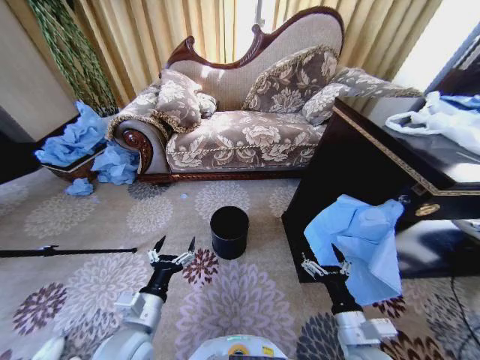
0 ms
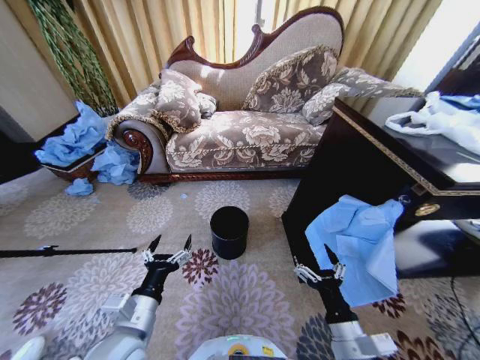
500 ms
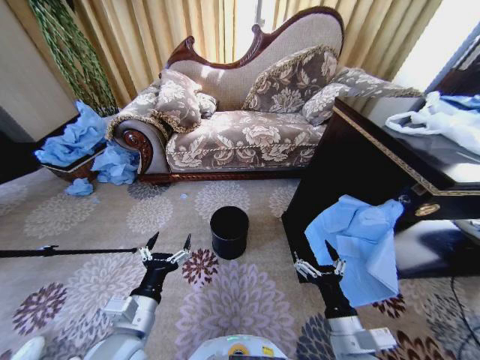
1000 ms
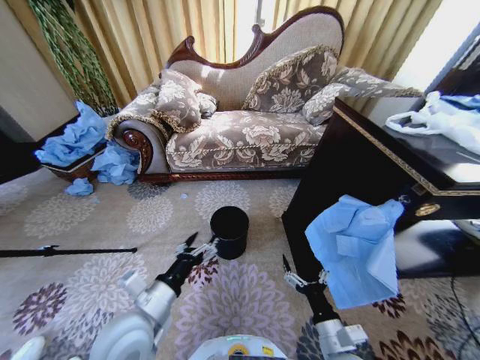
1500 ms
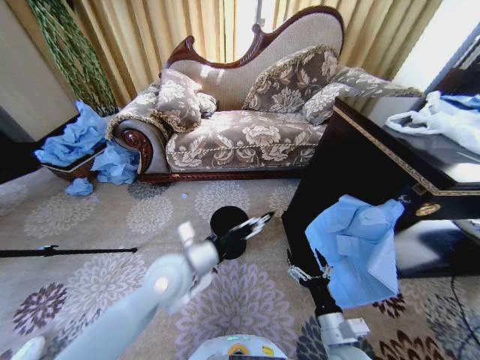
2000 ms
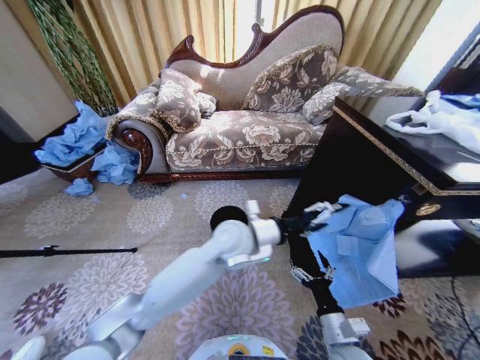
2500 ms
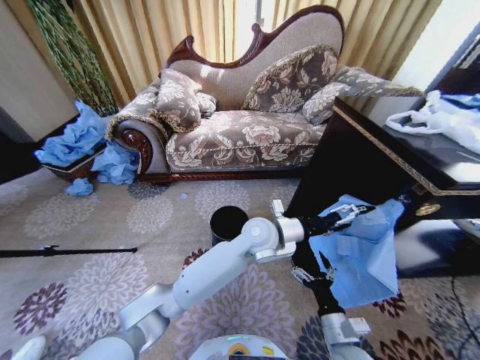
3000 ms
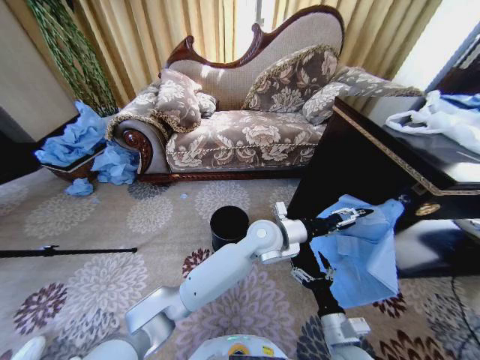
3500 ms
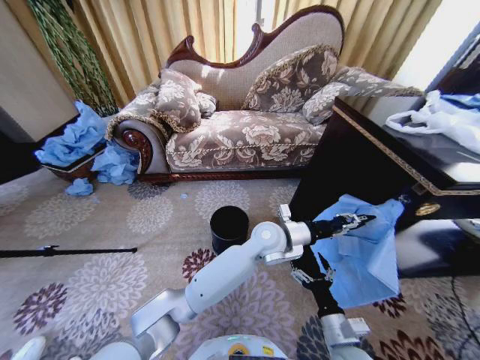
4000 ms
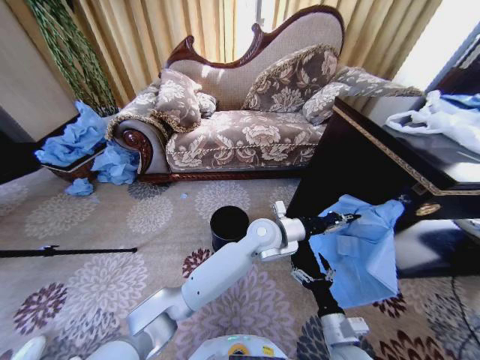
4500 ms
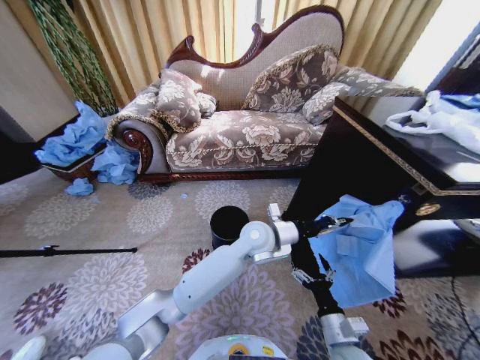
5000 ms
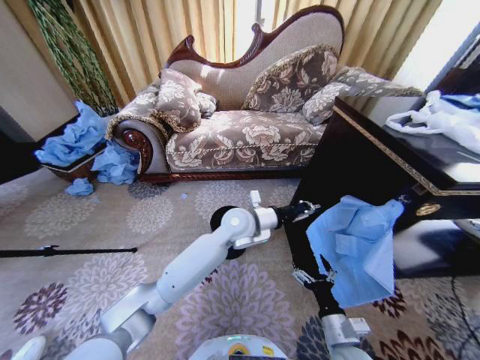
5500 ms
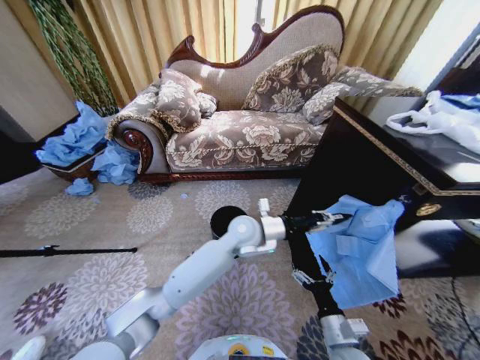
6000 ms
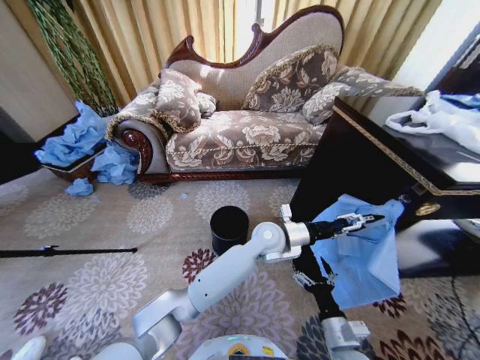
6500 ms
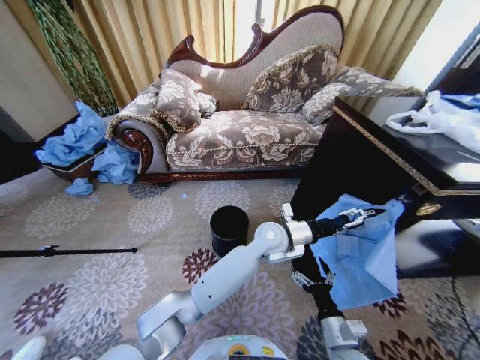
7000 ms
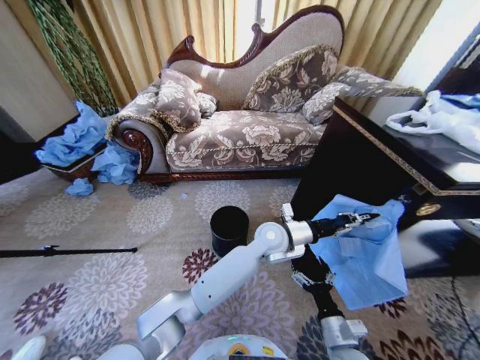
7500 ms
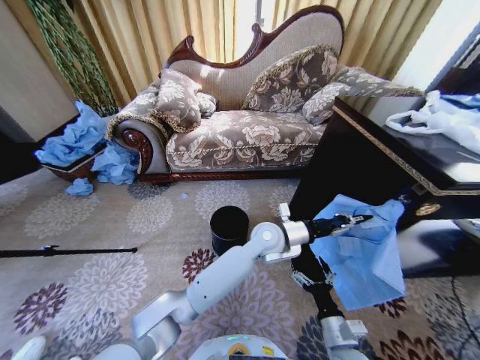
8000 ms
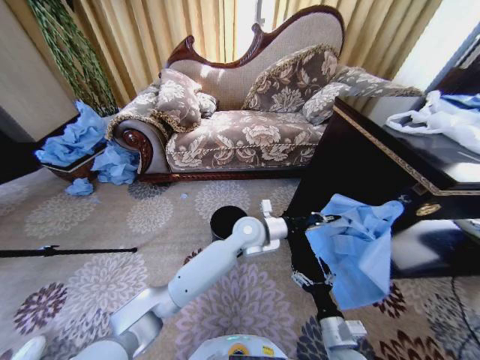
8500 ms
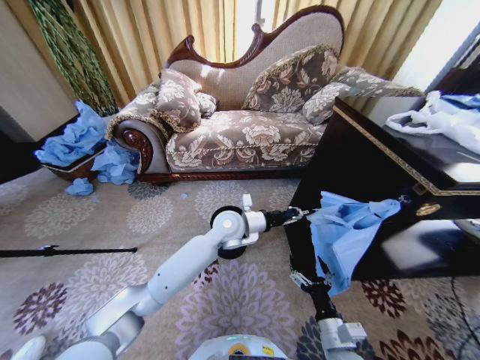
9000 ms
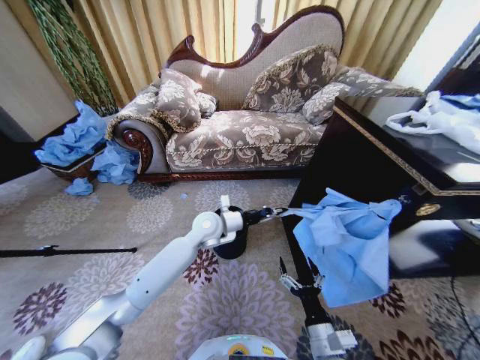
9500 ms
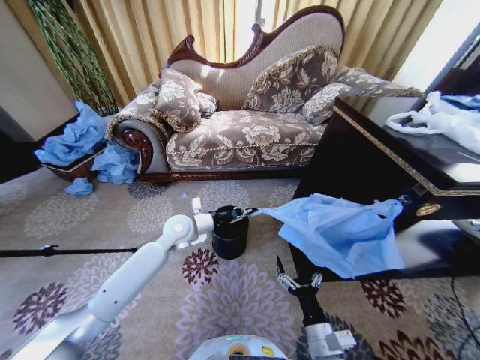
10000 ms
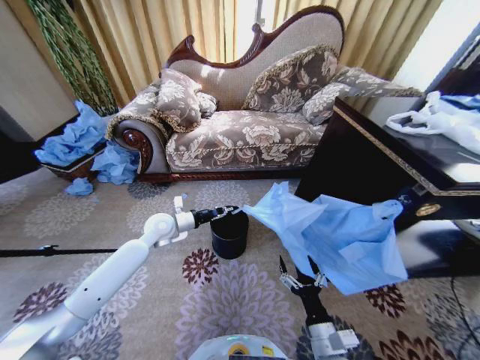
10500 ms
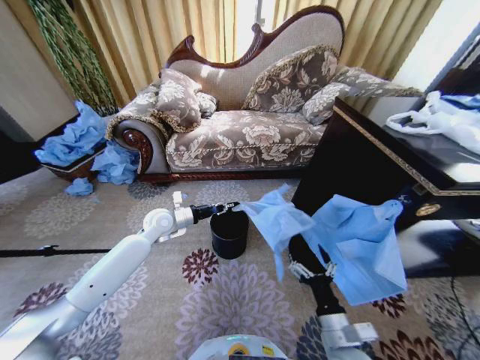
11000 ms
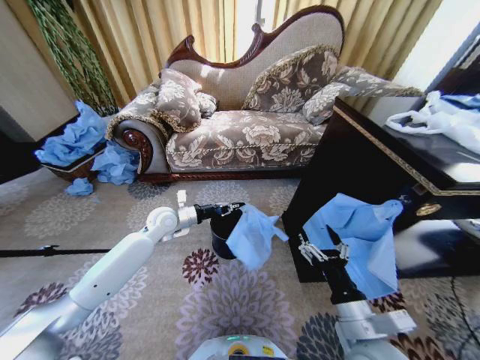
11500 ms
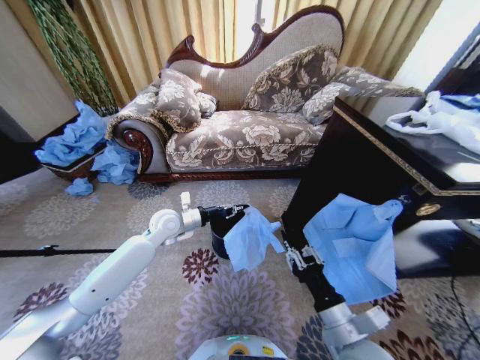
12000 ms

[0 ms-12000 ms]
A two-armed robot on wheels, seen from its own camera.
Task of the whole recording: Place a garbage bag over the trash bin.
2000 ms to 4000 ms: The left gripper shifts roughly 25 cm to the right and forward, and closes its fingers.
4000 ms to 6000 ms: The left gripper is displaced to the left by approximately 5 cm.
6000 ms to 8000 ms: The left gripper heads to the right, covering some 5 cm, and opens, then closes once more.
8000 ms to 10000 ms: The left gripper shifts about 25 cm to the left.
10000 ms to 12000 ms: The right gripper travels upward by approximately 10 cm, and closes up.

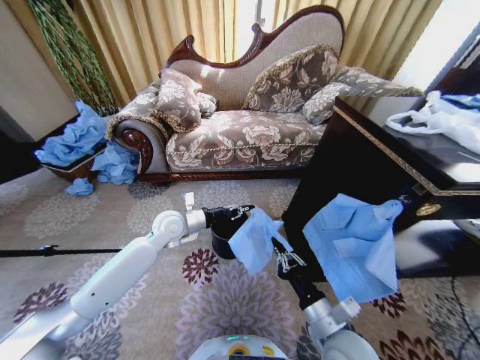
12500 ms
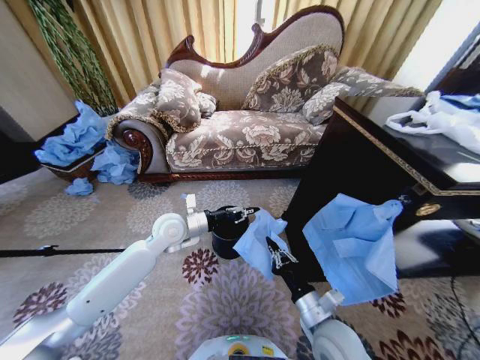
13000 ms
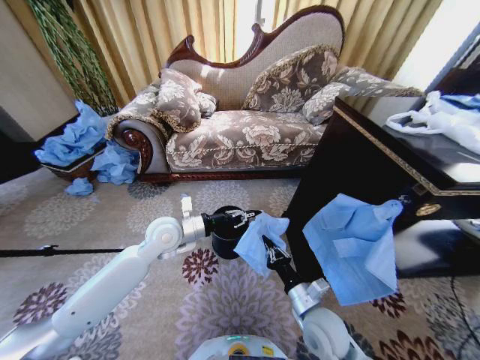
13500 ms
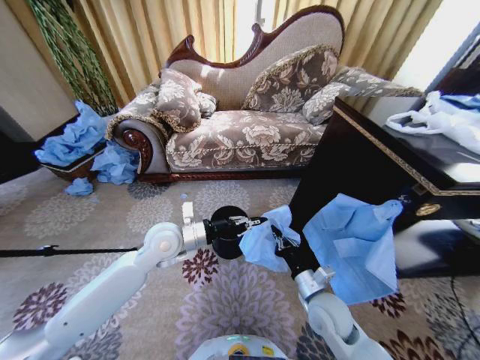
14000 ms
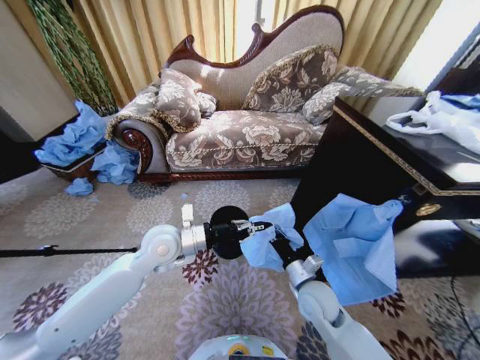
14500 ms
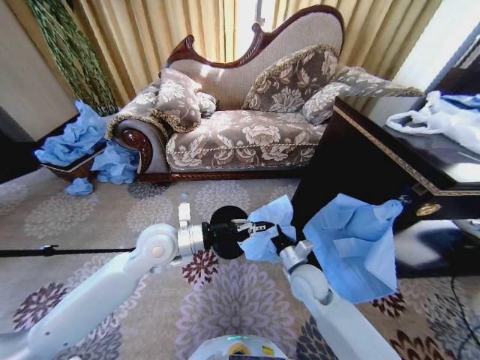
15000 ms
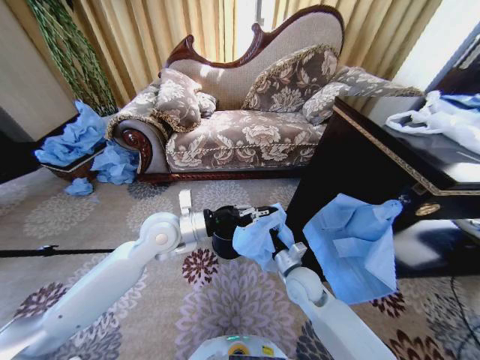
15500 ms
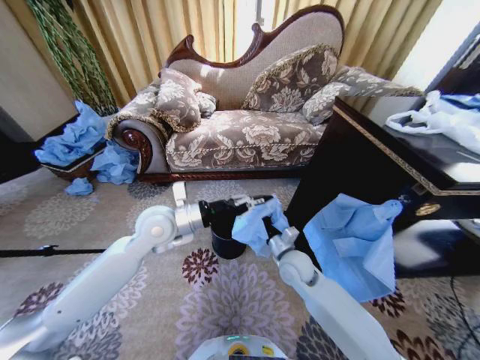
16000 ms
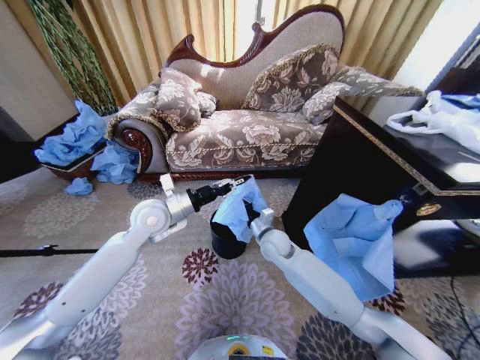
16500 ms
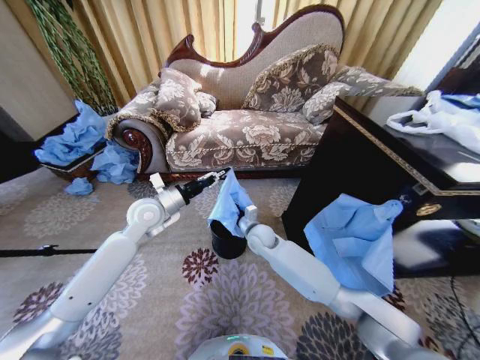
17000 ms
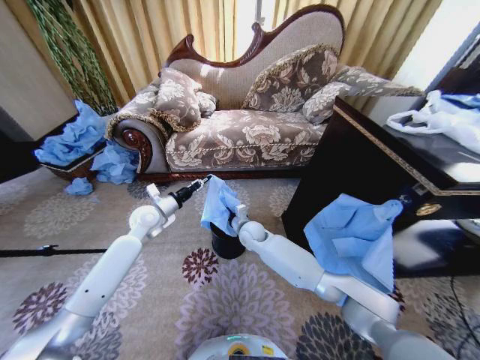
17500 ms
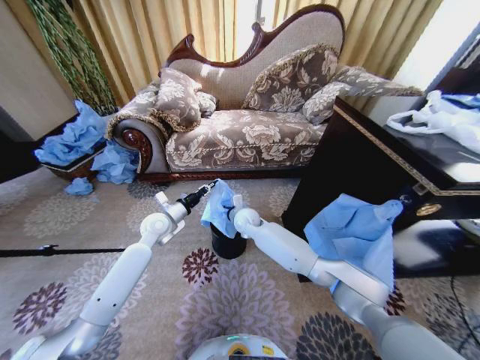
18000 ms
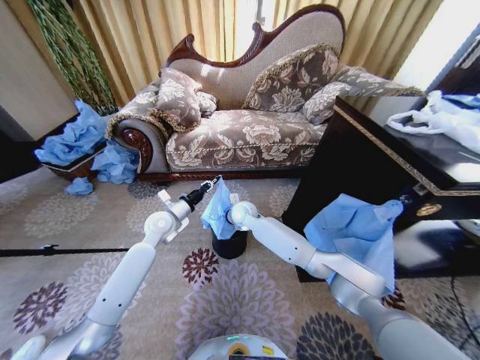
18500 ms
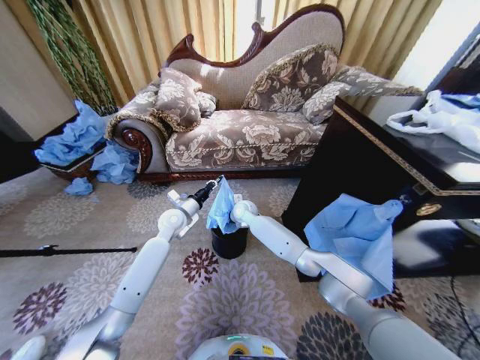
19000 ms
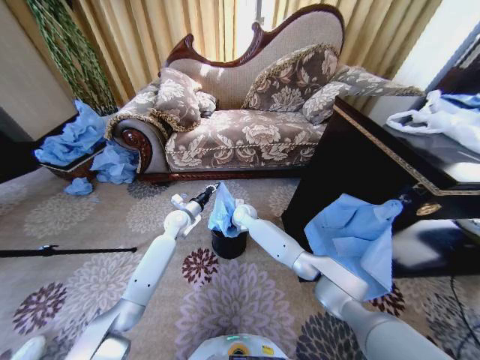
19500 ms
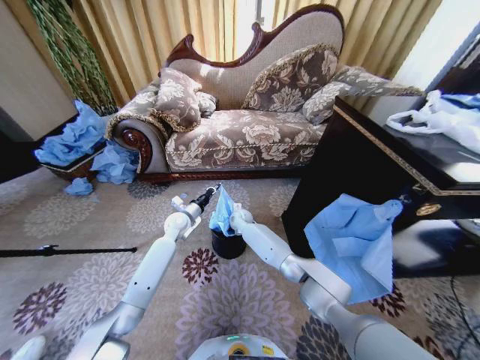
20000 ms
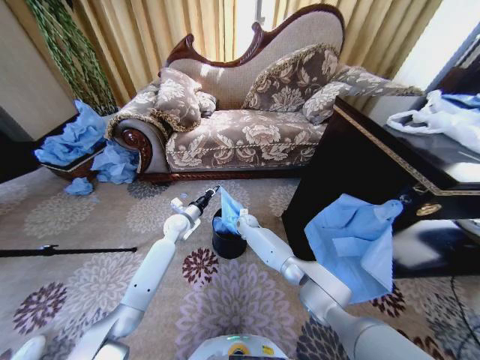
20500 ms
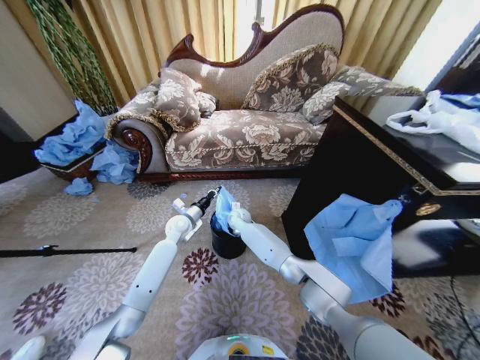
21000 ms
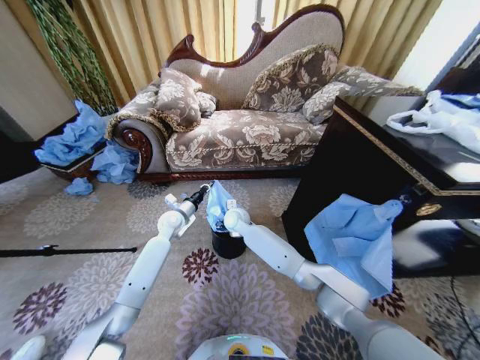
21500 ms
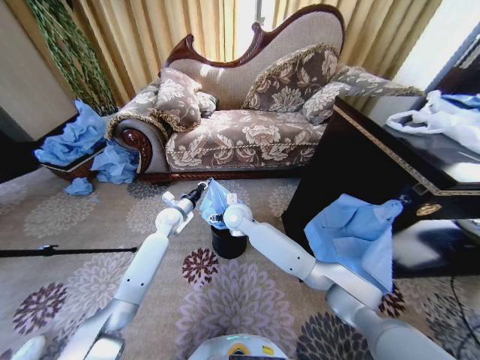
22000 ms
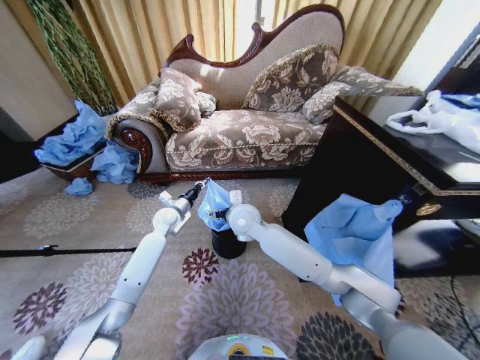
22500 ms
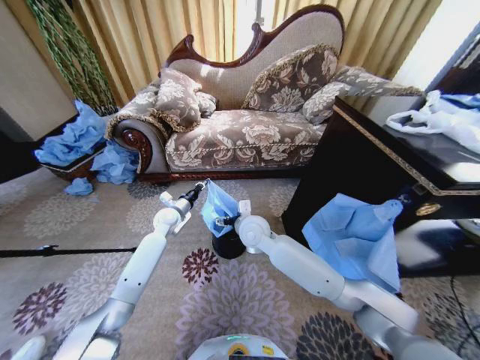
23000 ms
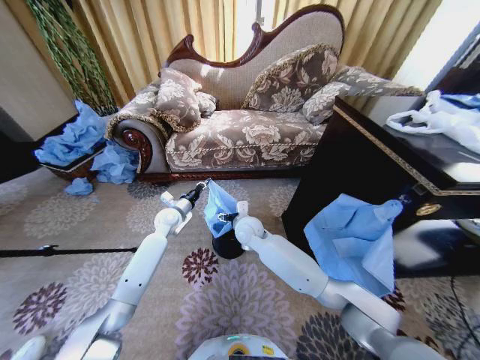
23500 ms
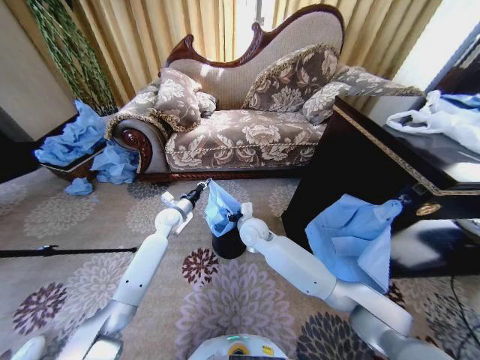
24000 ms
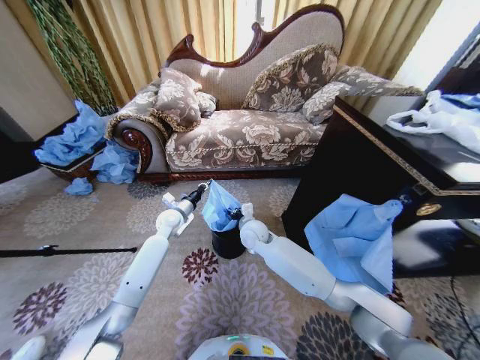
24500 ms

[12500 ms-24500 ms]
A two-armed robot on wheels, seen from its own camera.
Task of the whole recording: Place a garbage bag over the trash bin.
12500 ms to 14500 ms: The left gripper is displaced backward by roughly 10 cm. Meanwhile the right gripper heads forward, covering about 10 cm.
14500 ms to 16500 ms: The left gripper is displaced forward by about 5 cm. Meanwhile the right gripper shifts roughly 15 cm forward and to the left.
16500 ms to 18500 ms: The right gripper travels forward and to the left by about 15 cm. Meanwhile the left gripper heads downward and forward, covering some 10 cm.
18500 ms to 20500 ms: The right gripper travels downward and forward by approximately 15 cm. Meanwhile the left gripper heads downward, covering some 5 cm.
20500 ms to 22500 ms: The right gripper travels upward and backward by about 25 cm, and opens.
22500 ms to 24500 ms: The right gripper is displaced downward by roughly 10 cm, and closes up.

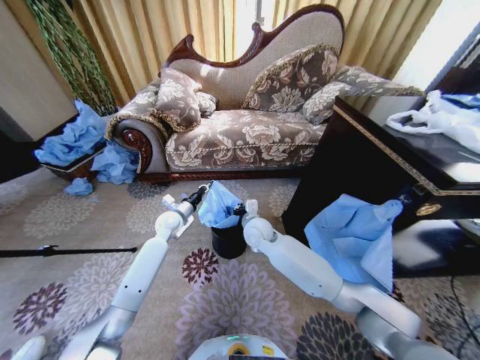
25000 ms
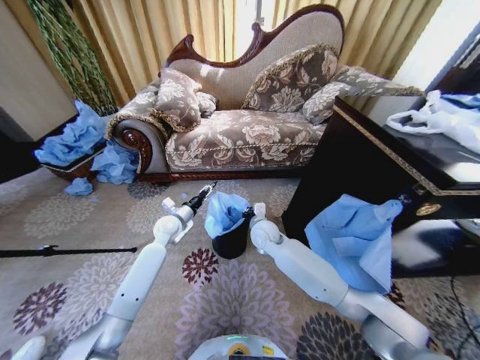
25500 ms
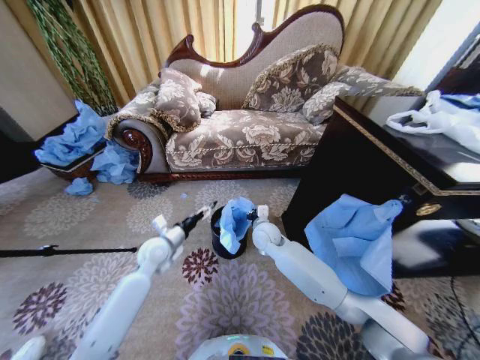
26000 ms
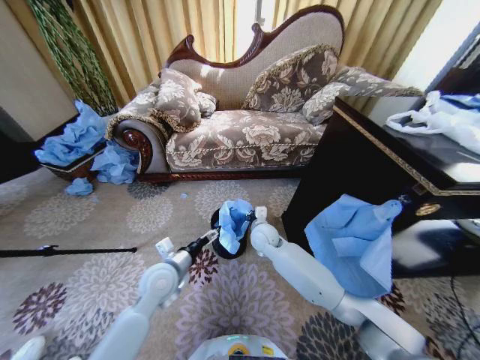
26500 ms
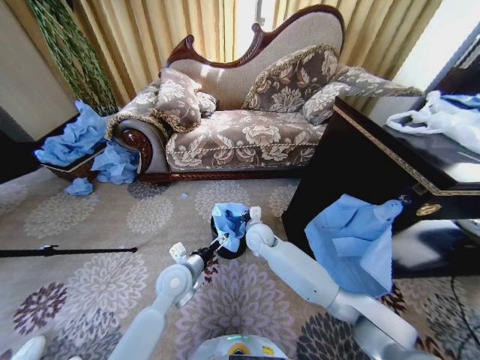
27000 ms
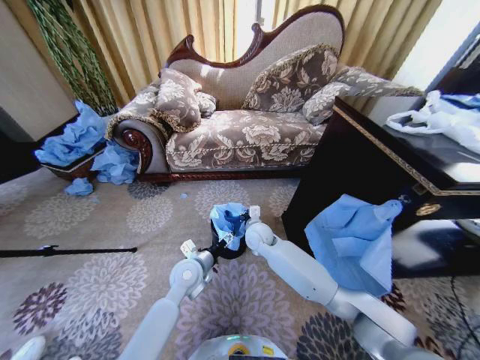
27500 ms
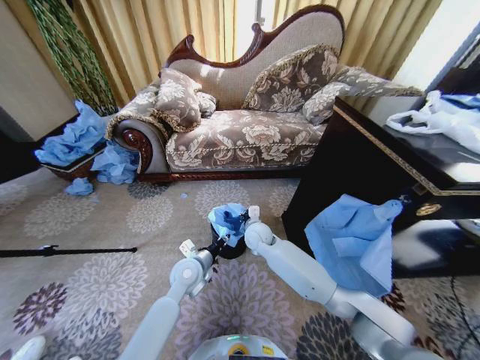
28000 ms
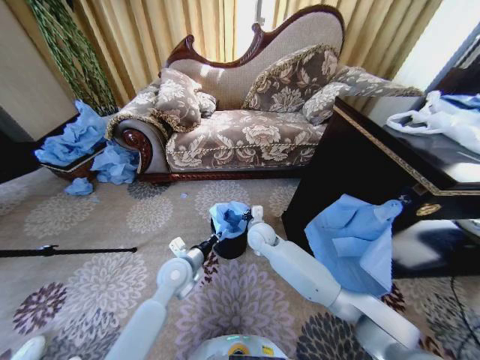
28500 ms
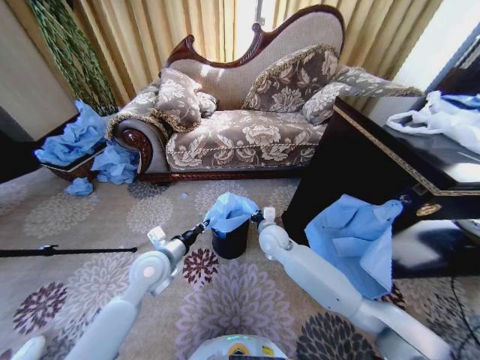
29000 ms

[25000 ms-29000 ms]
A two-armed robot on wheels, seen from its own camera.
Task of the whole recording: Place a garbage bag over the trash bin.
25000 ms to 27000 ms: The left gripper heads backward and to the right, covering approximately 20 cm, and opens.
27000 ms to 29000 ms: The right gripper moves about 5 cm. Meanwhile the left gripper is displaced upward and to the left by approximately 10 cm, and closes its fingers.
